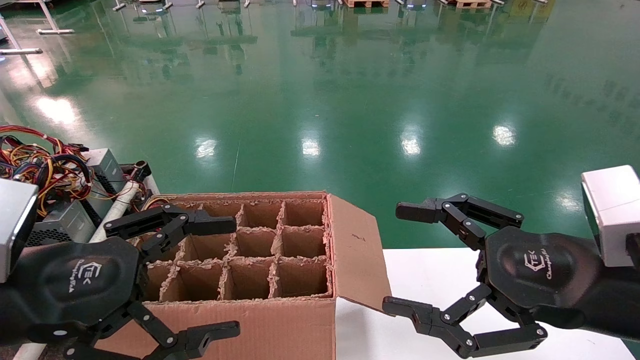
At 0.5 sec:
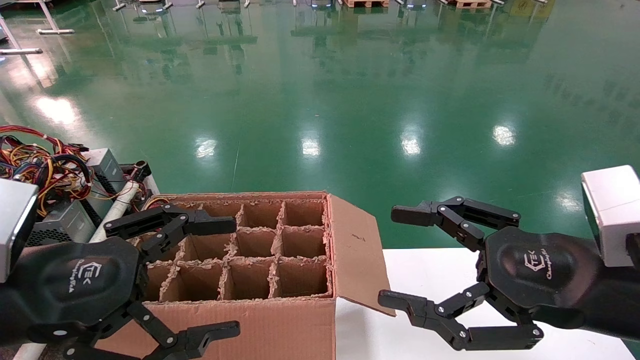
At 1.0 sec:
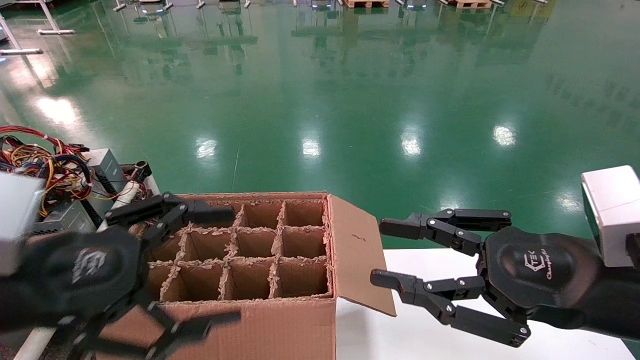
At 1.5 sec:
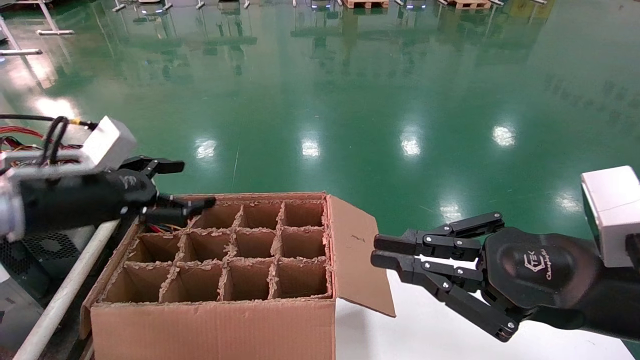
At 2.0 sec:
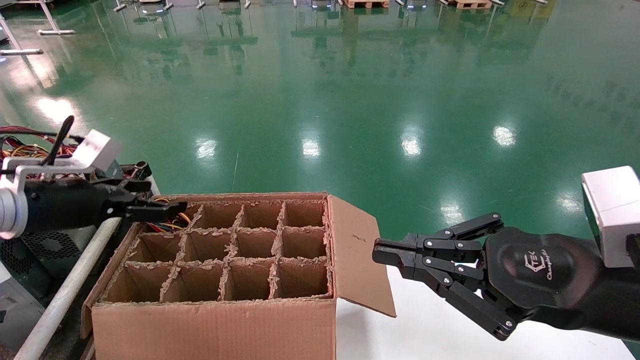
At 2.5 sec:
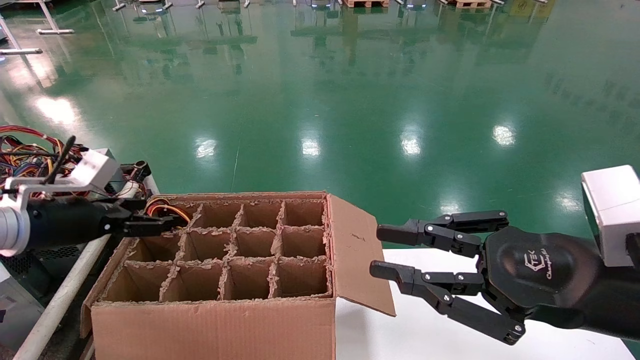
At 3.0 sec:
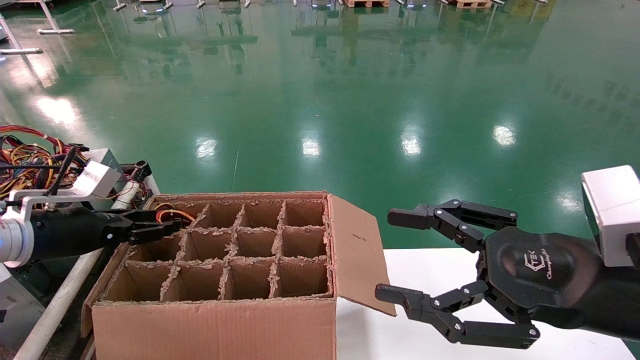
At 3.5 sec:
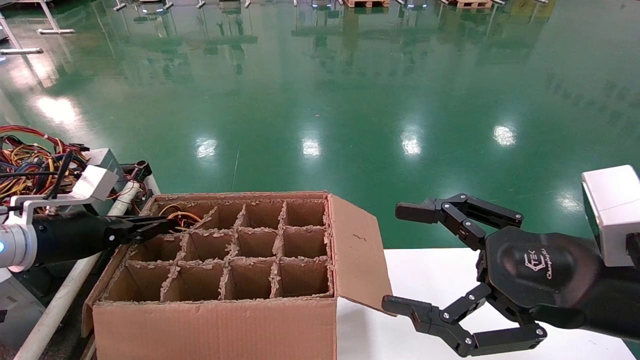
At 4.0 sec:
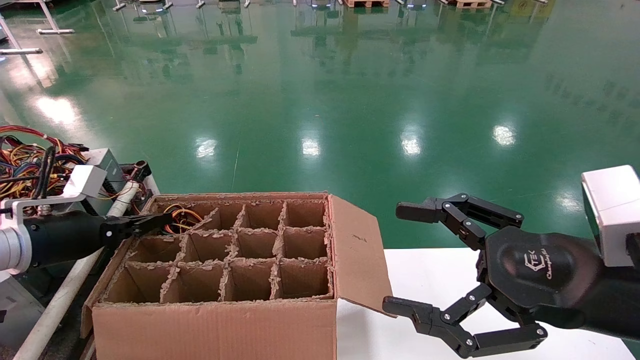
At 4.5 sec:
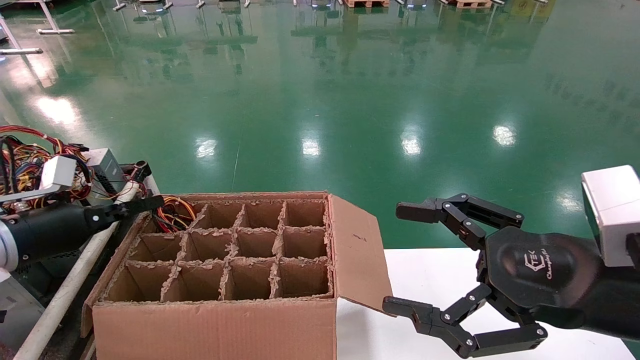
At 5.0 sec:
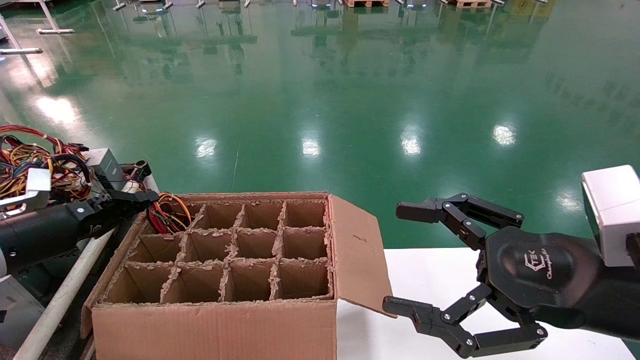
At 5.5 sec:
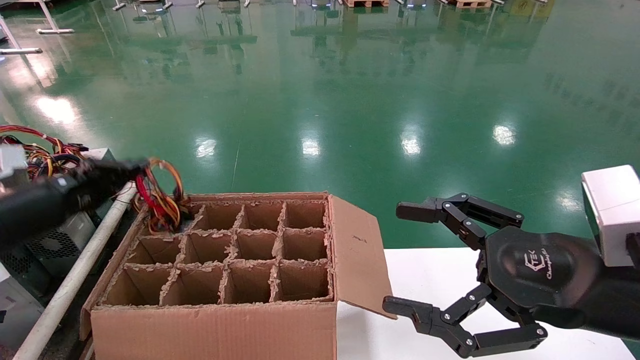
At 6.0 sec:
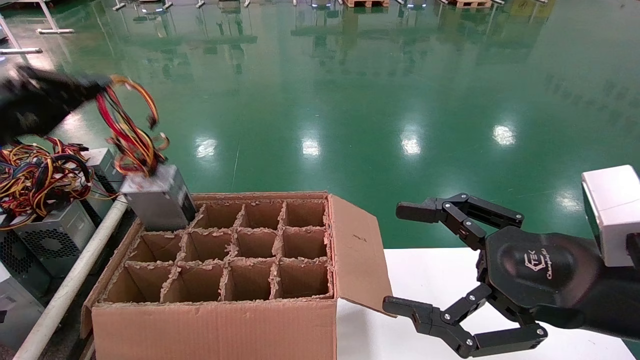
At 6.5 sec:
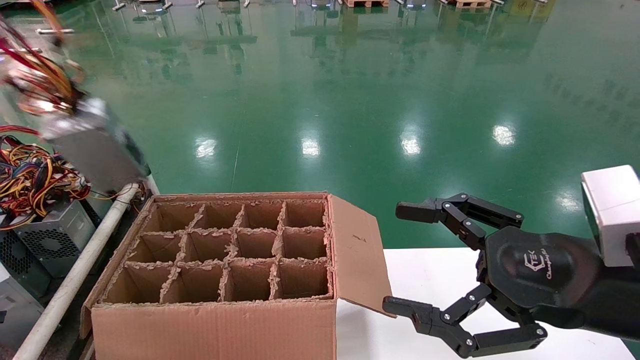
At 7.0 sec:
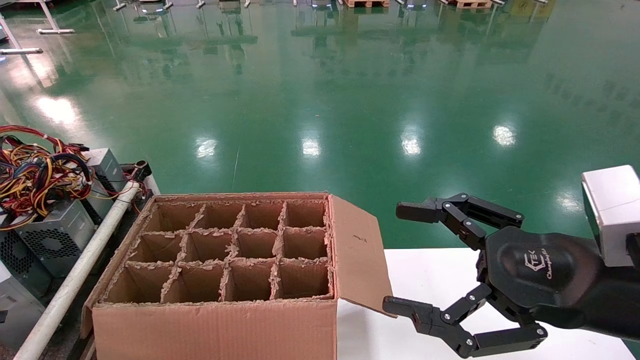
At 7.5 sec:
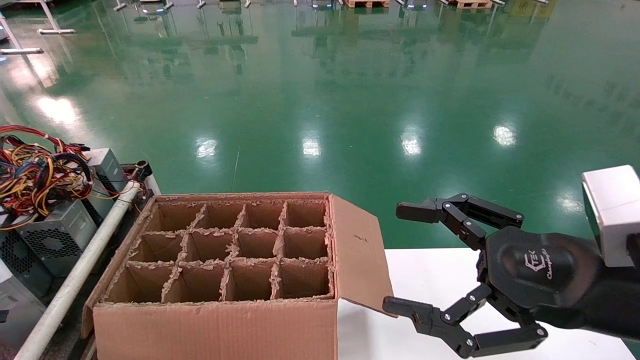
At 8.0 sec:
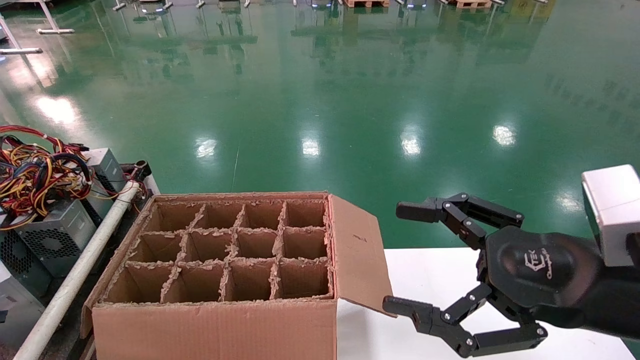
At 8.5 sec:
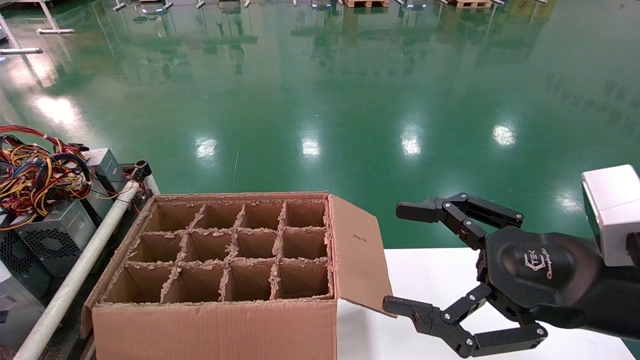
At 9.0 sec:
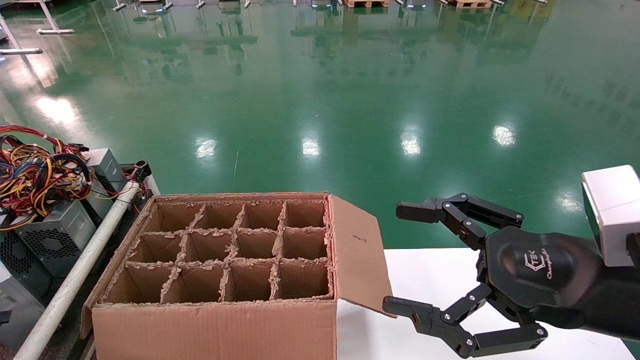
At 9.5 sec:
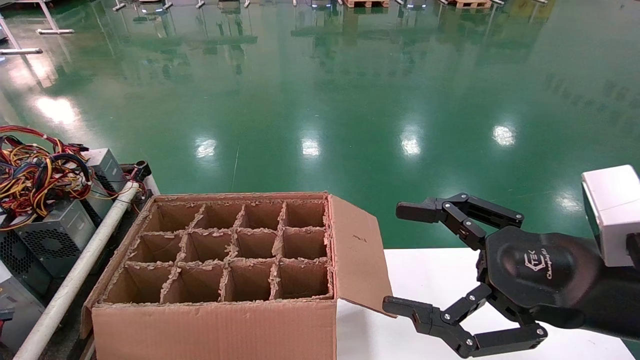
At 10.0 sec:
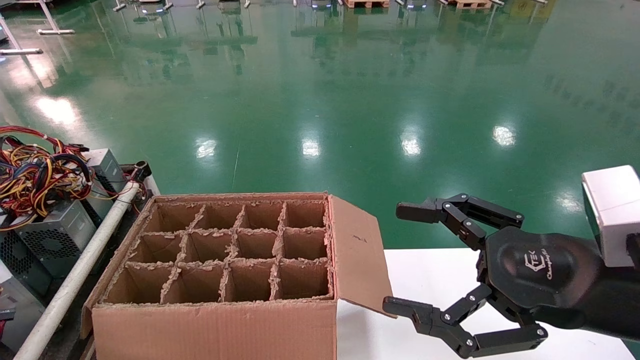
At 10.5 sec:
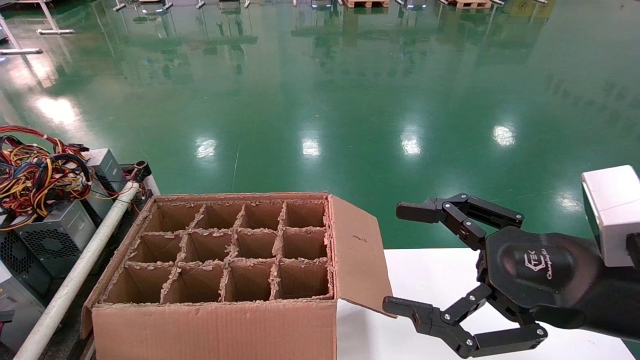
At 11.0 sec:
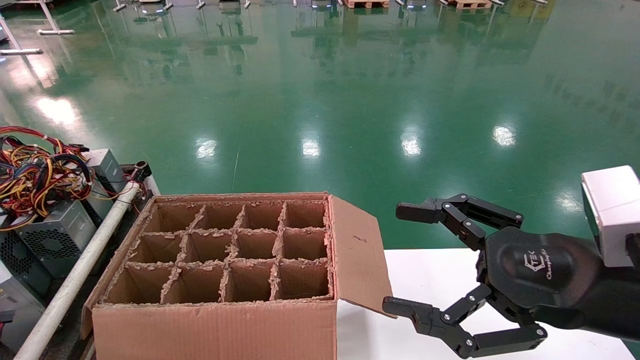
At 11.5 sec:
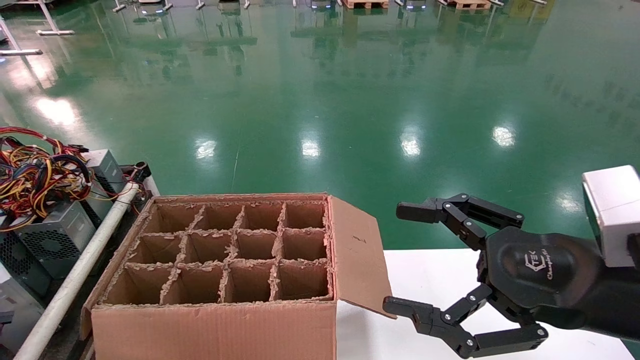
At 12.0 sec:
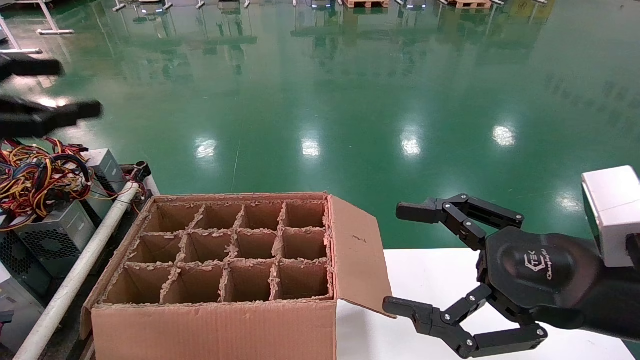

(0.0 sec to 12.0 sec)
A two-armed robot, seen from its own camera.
Step, 1.5 sec - 3.5 sec: Grab and lift the power supply from the large box.
Step, 4.0 sec - 11.0 sec: Place the power supply on the operating table.
0.0 sec - 2.0 sec: The right gripper closes its fingers. The left gripper goes some 20 cm forward and to the left.
2.0 sec - 4.0 sec: The left gripper heads downward, covering some 5 cm, and closes its fingers, while the right gripper opens up.
4.0 sec - 6.0 sec: The left gripper travels upward and backward by about 15 cm.
6.0 sec - 8.0 sec: The left gripper goes roughly 35 cm backward and to the left.
10.0 sec - 12.0 sec: The left gripper is displaced to the right, forward and upward by some 25 cm, and opens up.

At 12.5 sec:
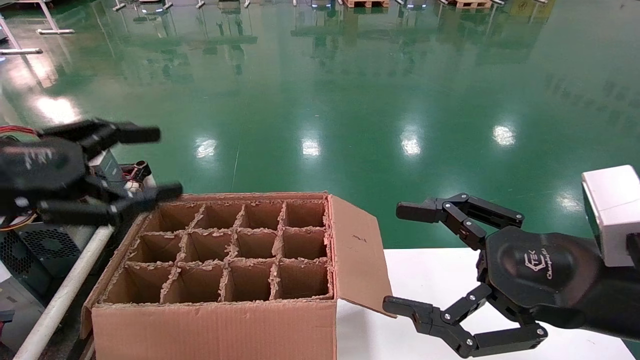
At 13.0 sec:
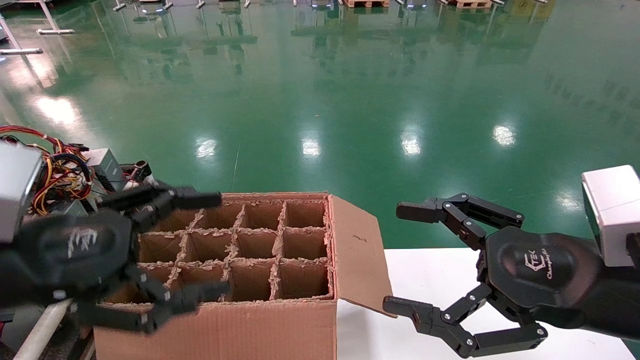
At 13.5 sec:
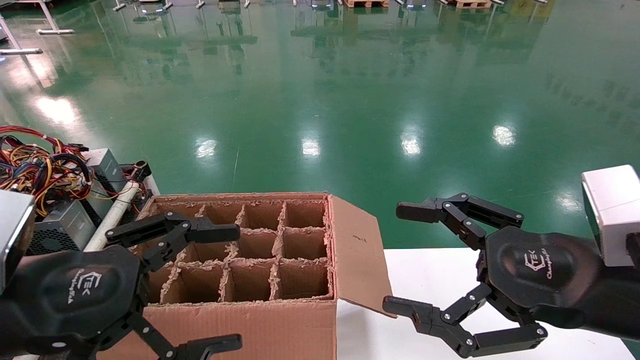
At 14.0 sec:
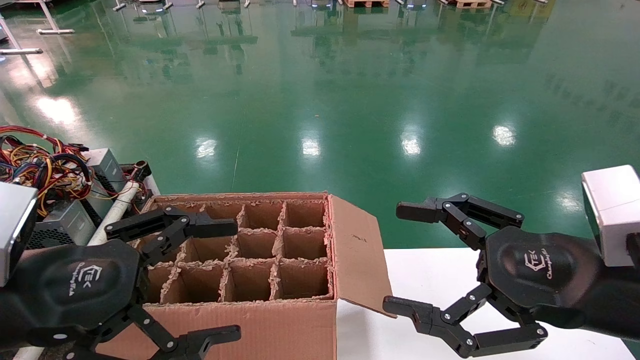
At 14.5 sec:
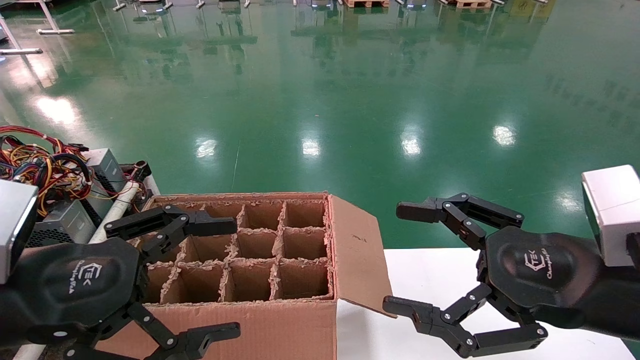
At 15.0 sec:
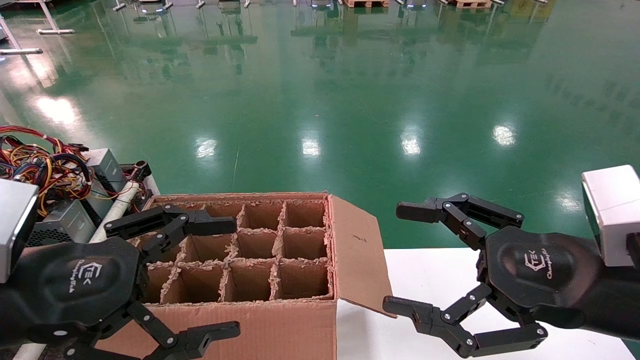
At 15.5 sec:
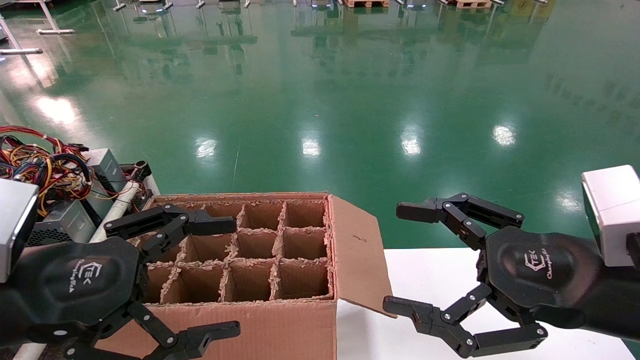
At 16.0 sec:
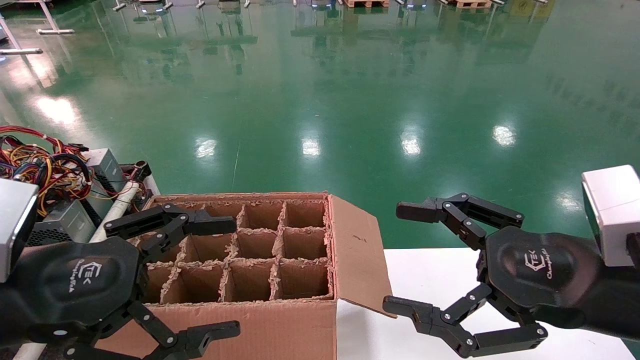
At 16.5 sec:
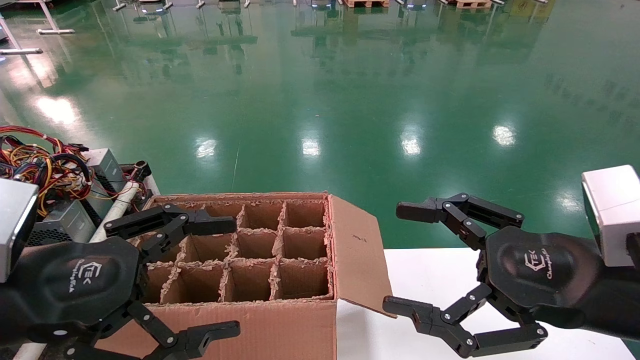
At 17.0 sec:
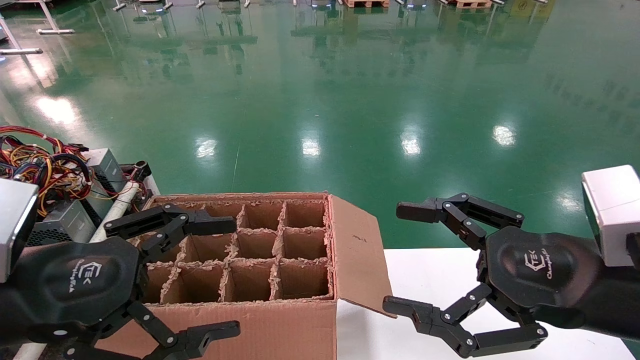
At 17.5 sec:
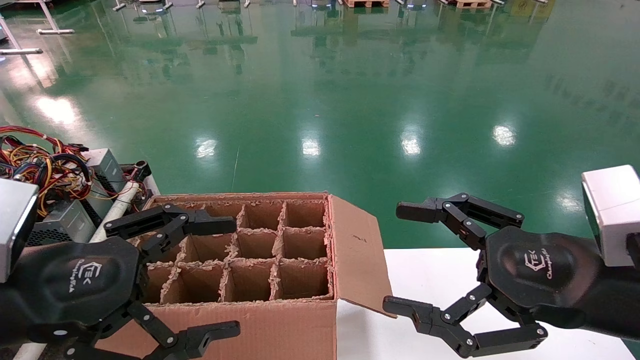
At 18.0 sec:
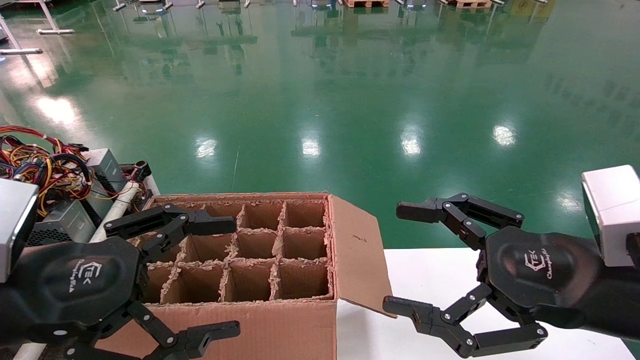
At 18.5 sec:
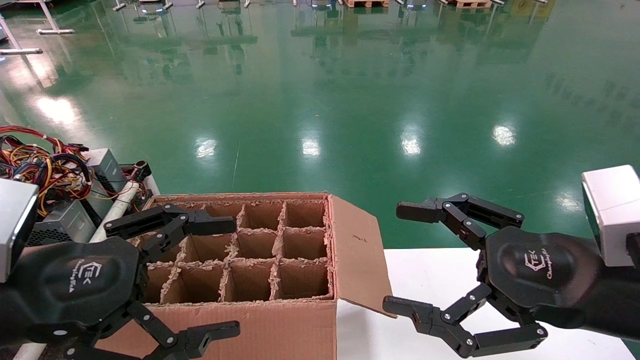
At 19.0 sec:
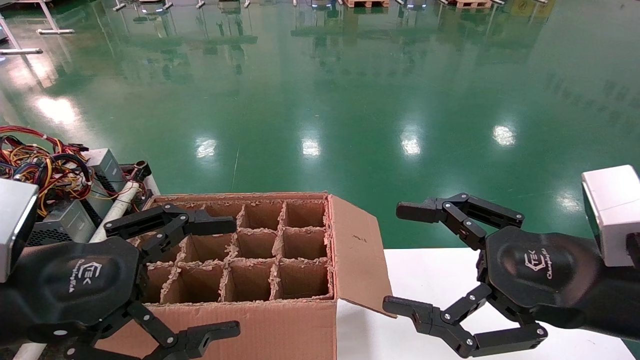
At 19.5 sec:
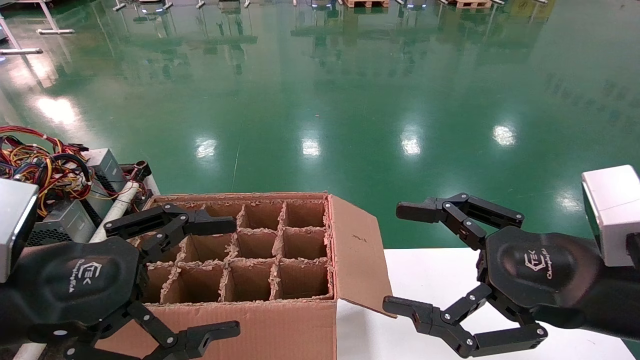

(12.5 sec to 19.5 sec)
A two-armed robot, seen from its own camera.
12.5 sec - 14.5 sec: The left gripper moves downward and to the right, approximately 10 cm.
14.5 sec - 19.5 sec: Both grippers stay about where they are.
